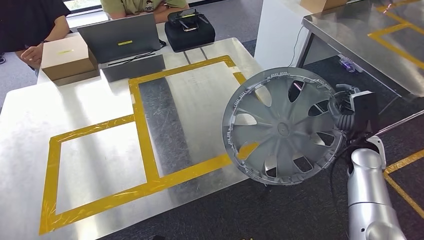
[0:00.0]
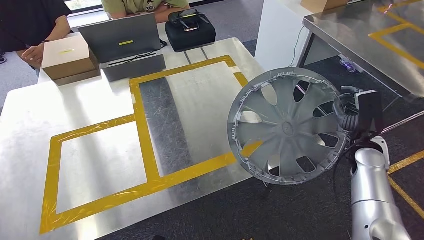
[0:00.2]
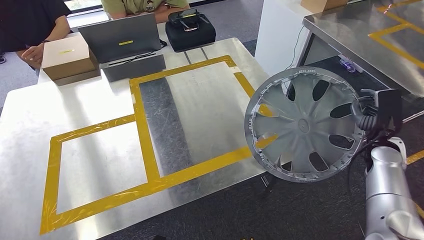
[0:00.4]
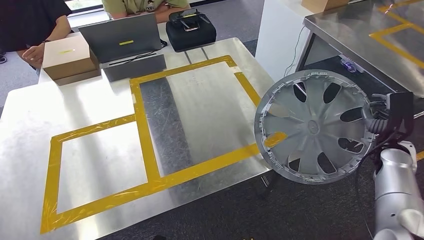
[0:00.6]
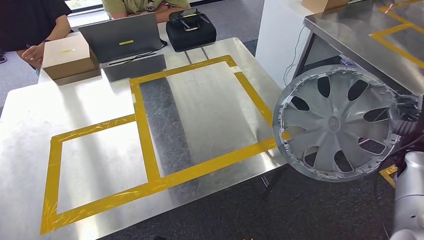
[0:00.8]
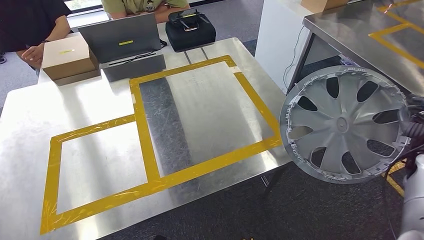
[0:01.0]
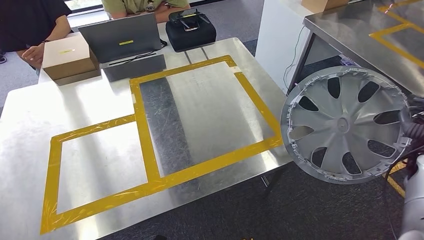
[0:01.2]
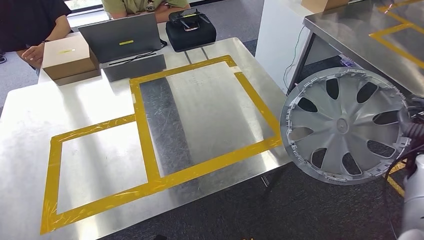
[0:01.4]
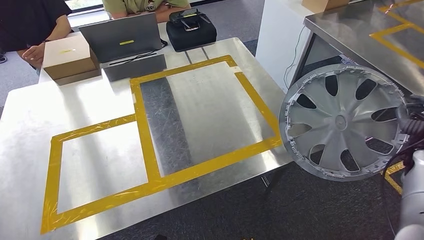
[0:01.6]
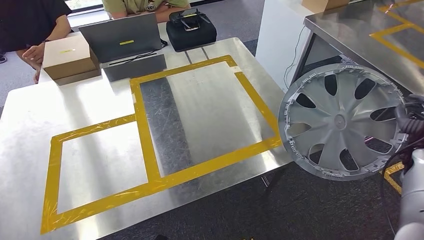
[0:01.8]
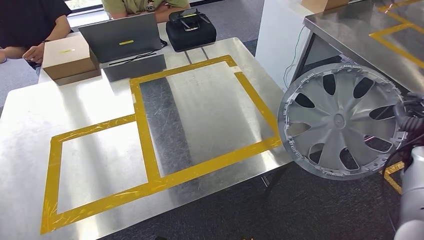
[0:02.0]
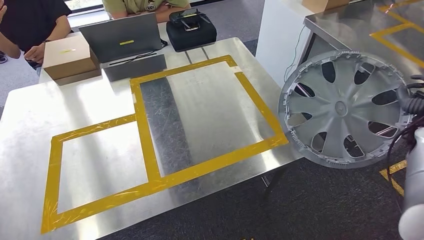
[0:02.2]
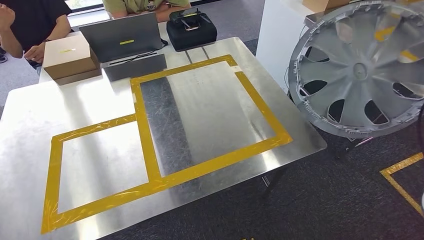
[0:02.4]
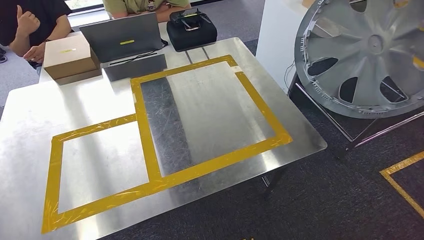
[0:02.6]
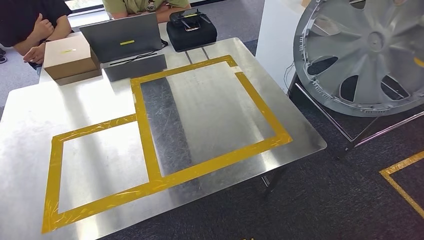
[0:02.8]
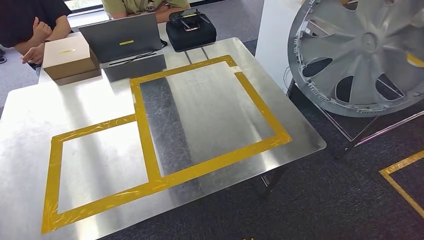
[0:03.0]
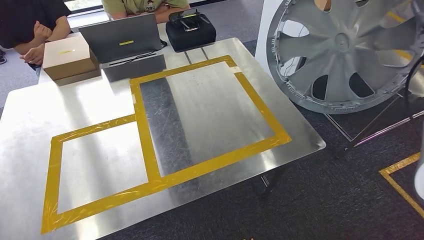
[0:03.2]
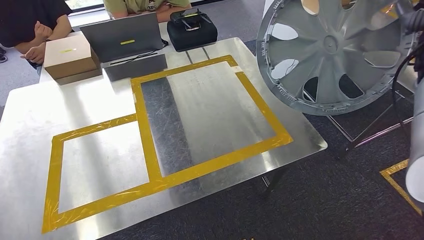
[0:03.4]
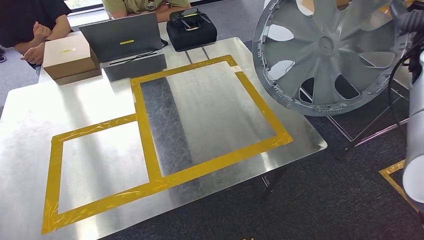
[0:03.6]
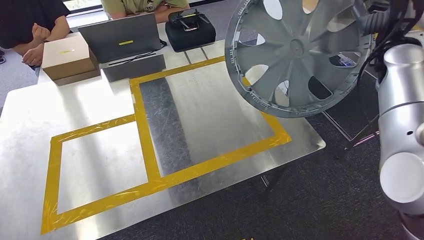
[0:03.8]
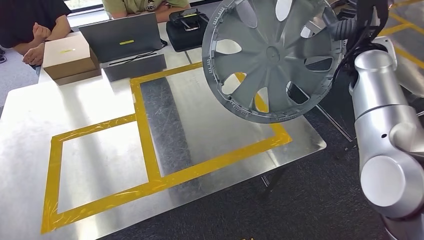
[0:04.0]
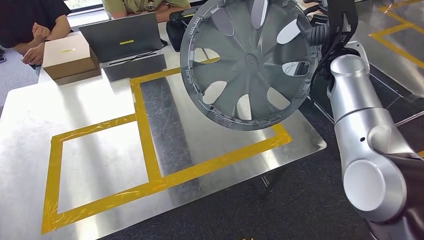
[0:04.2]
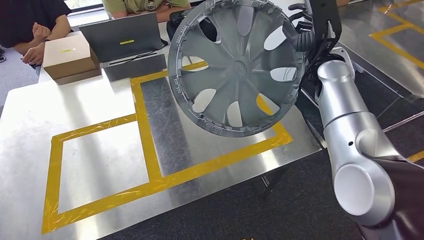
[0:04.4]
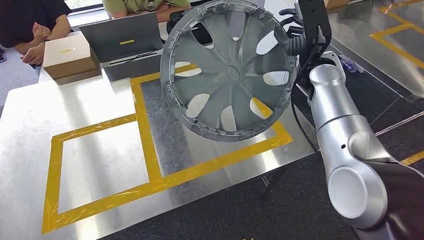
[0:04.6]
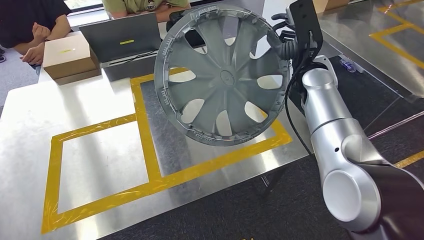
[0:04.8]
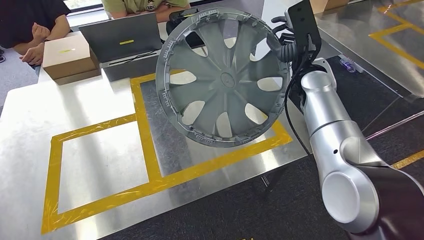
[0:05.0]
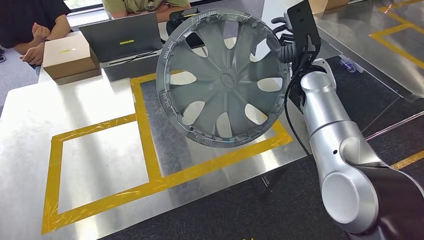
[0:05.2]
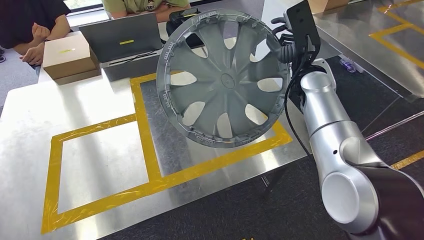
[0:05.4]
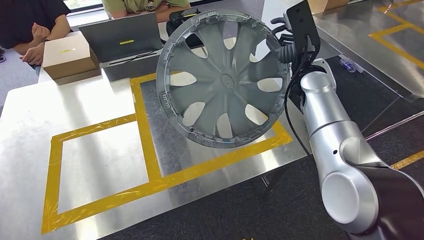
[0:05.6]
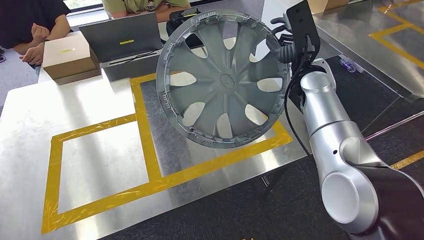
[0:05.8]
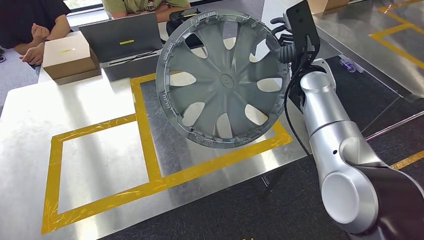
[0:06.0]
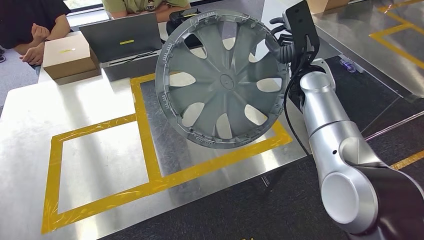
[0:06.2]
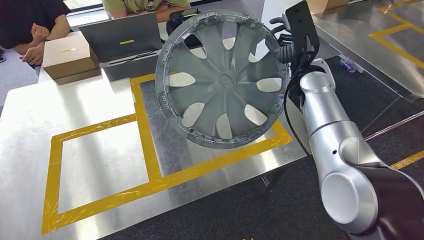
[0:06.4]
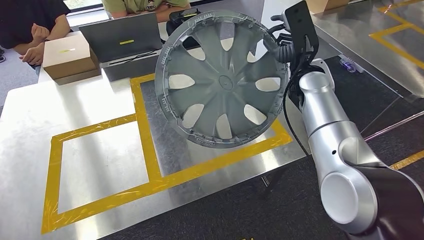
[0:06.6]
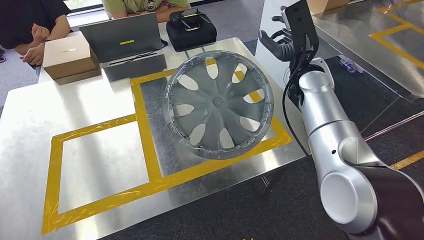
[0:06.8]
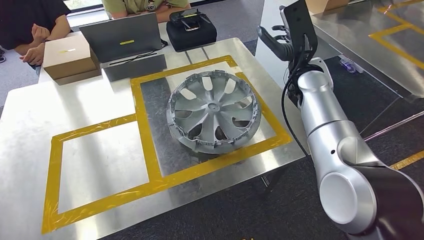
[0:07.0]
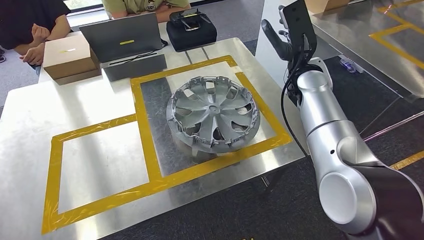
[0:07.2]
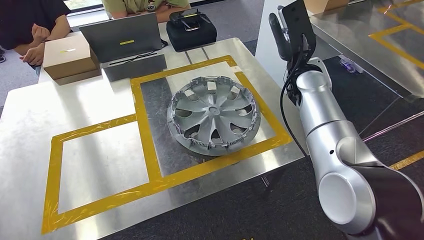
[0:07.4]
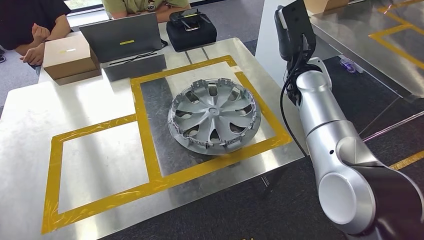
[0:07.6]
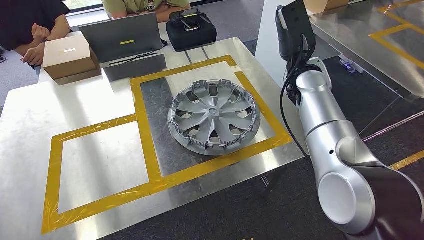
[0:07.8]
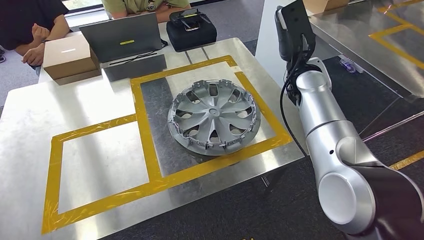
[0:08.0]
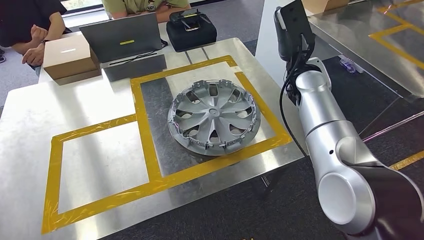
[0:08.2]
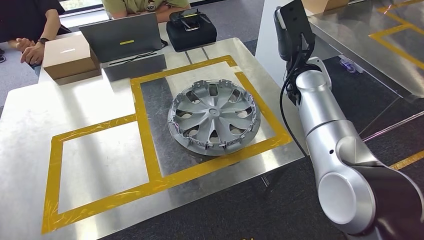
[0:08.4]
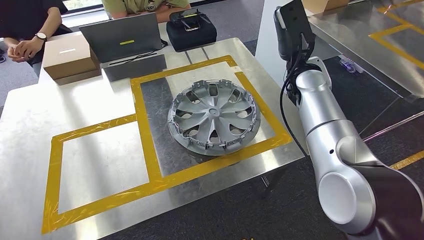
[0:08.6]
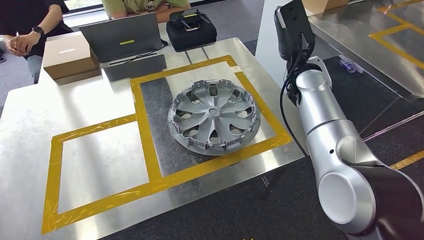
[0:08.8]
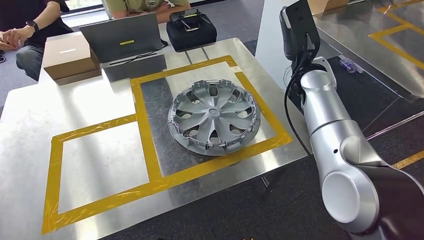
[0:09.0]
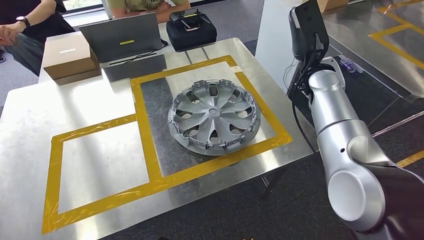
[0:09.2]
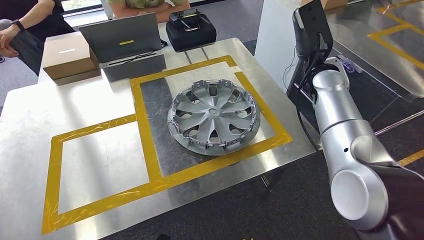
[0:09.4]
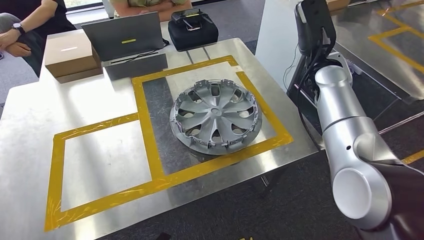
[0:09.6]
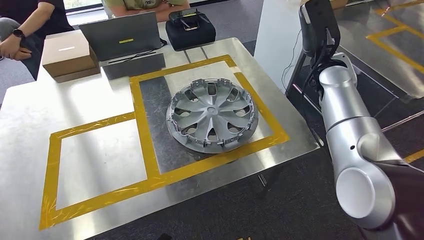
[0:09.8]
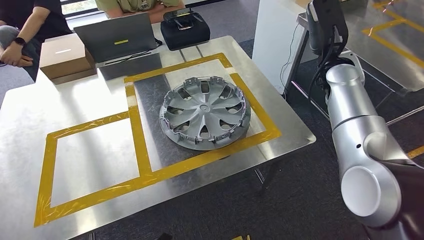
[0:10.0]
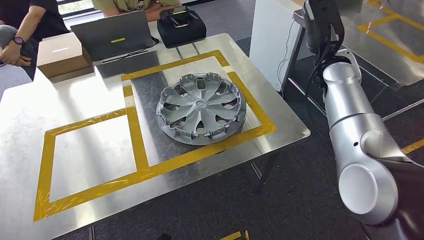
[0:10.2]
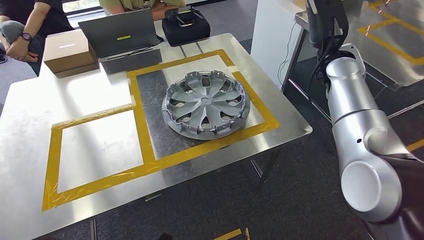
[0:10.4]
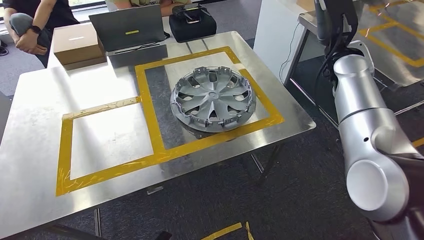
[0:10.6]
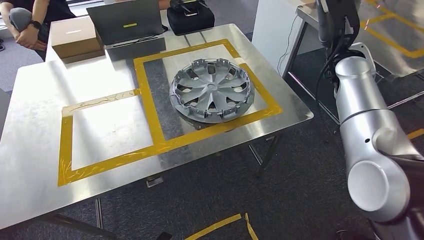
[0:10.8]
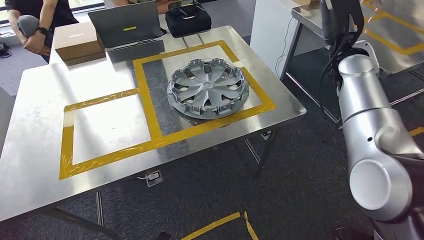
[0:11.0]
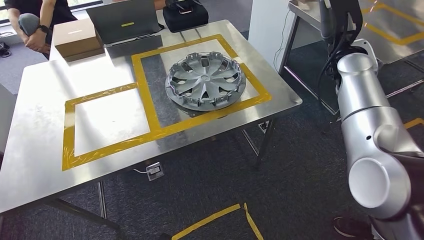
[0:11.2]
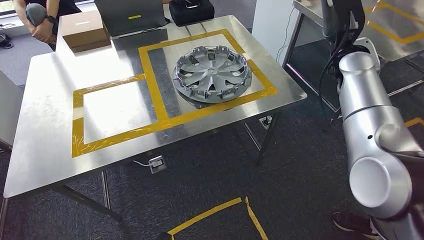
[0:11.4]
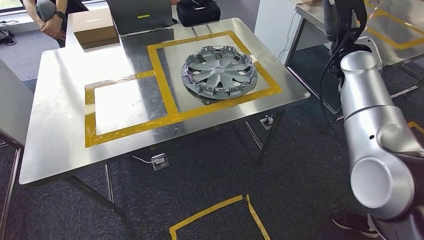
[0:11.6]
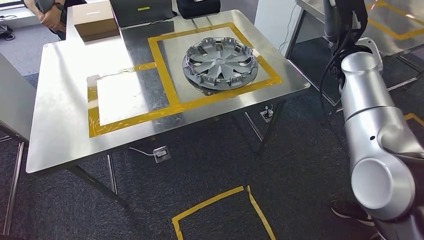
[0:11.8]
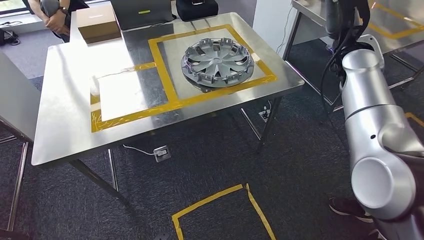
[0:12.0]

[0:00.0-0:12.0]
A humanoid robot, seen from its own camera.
Step, 0:00.0 to 0:08.2: Insert the small parts into the corresponding slots on the workbench.
0:01.6 to 0:03.0: The right hand is displaced upward by approximately 25 cm.
0:06.0 to 0:09.0: Both hands stay put.

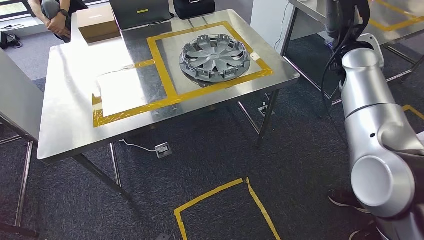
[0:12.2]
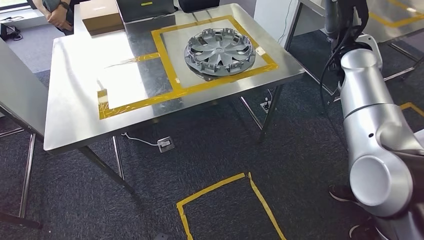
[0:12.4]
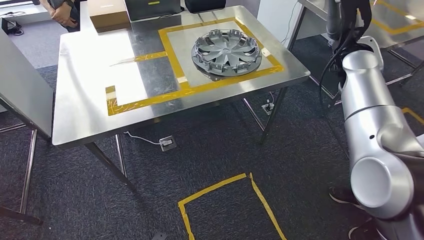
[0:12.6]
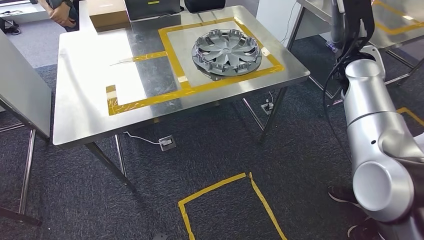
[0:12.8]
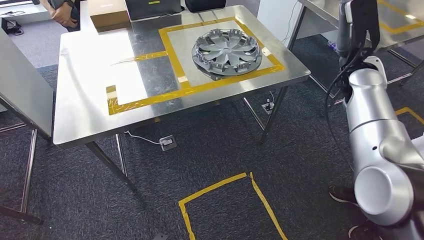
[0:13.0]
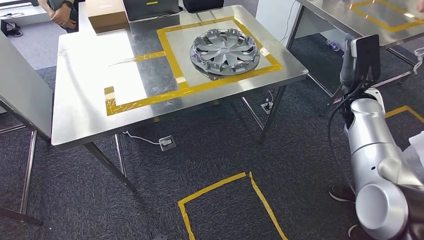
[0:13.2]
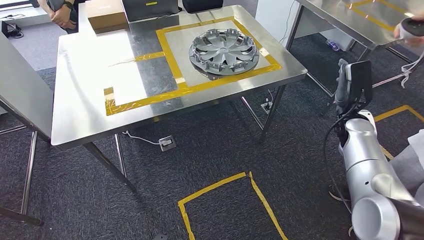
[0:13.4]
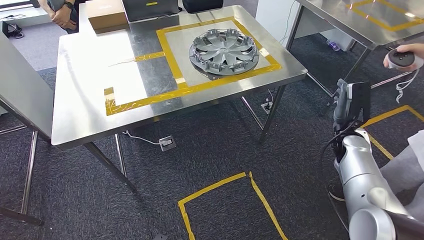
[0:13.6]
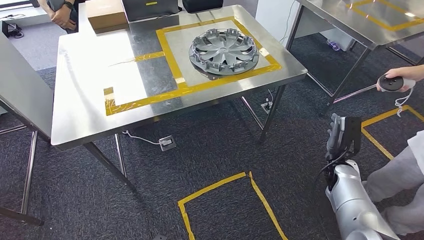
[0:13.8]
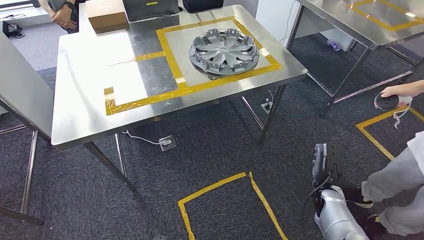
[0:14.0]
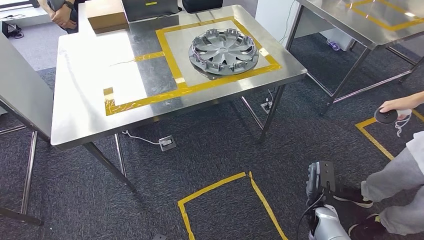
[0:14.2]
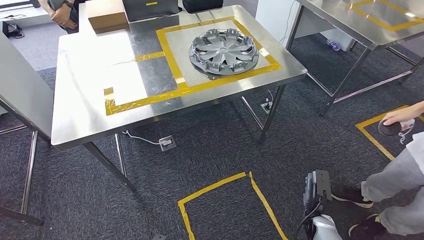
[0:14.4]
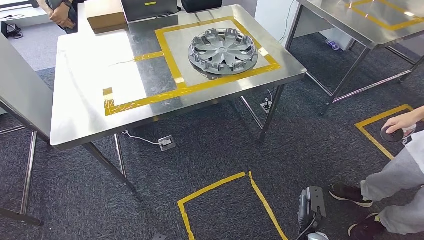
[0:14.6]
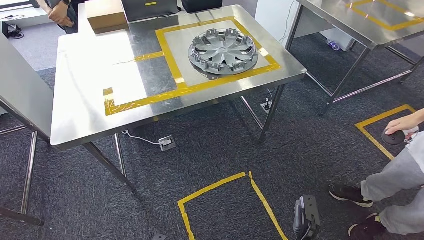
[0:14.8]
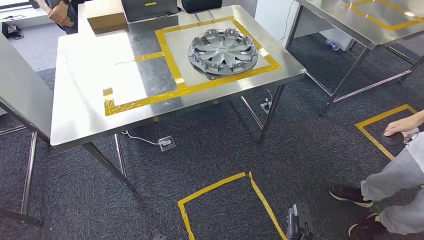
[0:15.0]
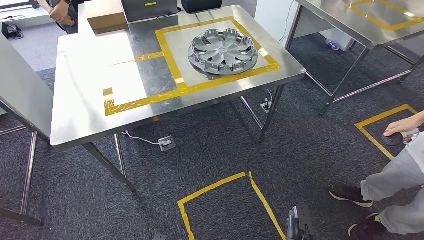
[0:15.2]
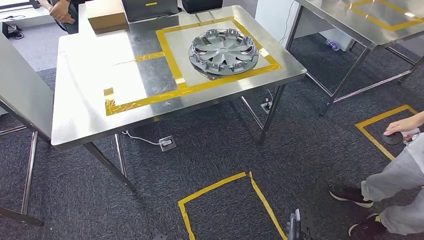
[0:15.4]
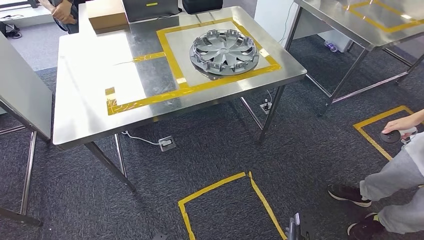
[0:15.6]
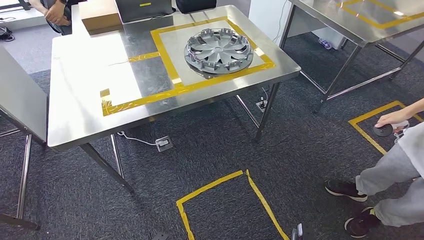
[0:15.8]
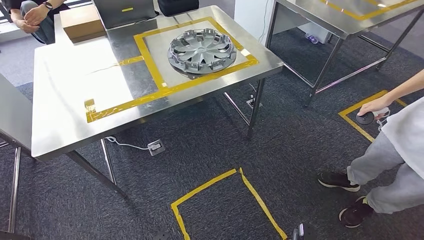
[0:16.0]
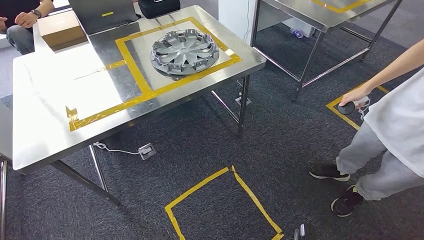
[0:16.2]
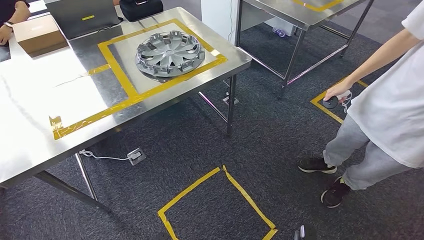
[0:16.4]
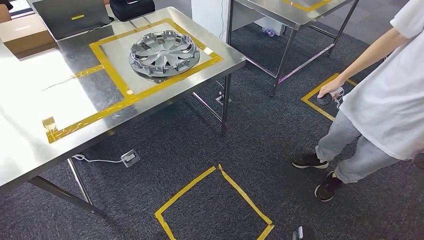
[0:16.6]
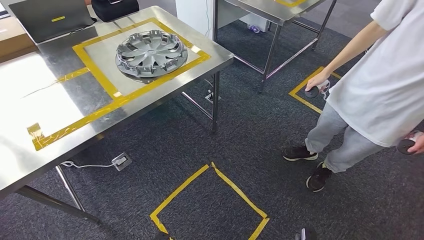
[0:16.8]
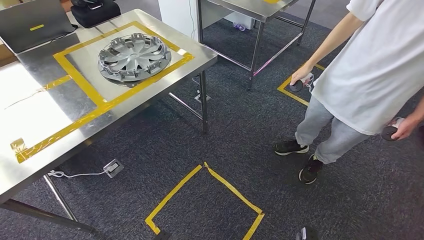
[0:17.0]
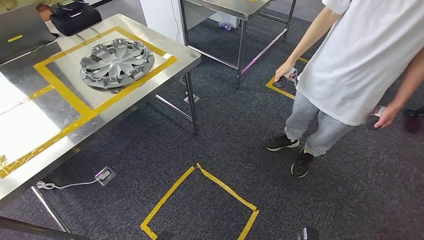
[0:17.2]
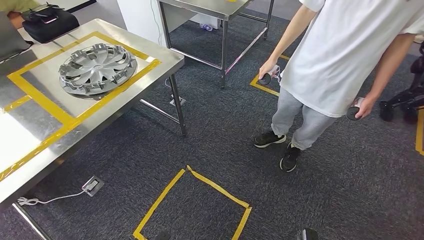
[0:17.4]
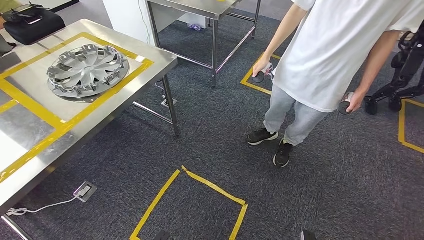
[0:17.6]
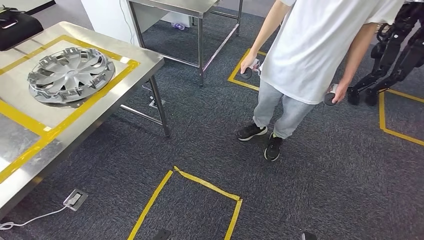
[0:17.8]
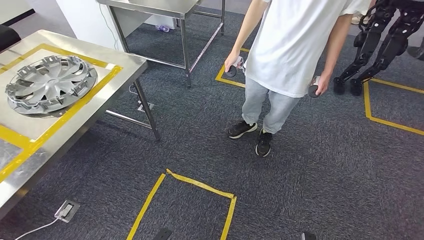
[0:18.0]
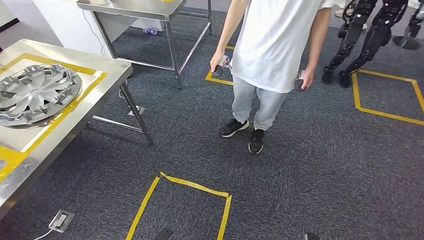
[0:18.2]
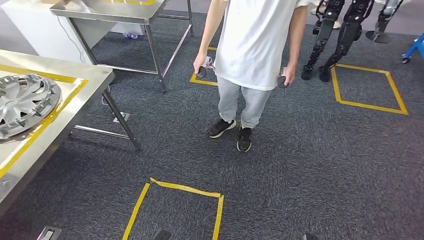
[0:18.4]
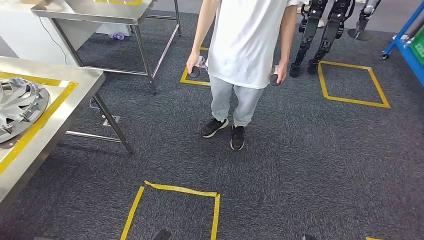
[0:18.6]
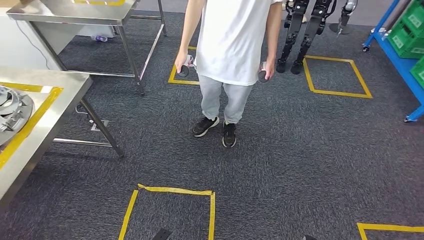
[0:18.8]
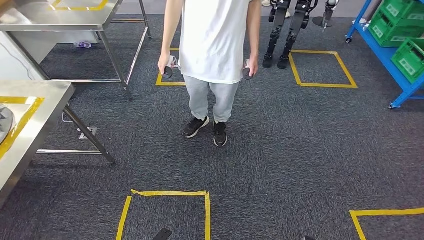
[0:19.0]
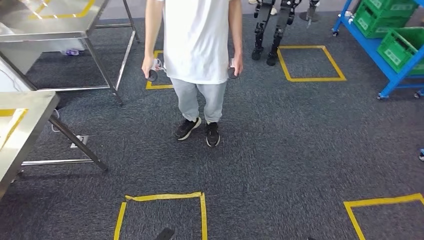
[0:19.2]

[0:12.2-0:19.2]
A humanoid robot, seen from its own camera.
0:13.6 to 0:15.0: The right hand heads backward and downward, covering some 35 cm.
